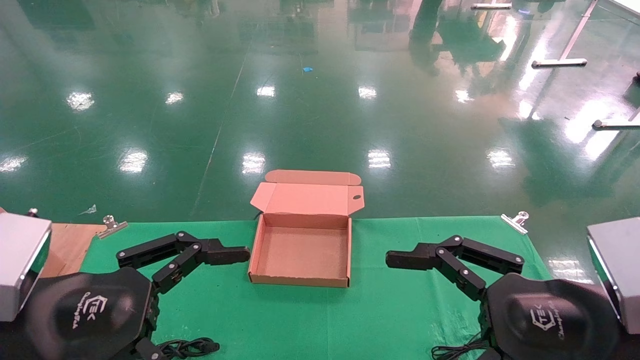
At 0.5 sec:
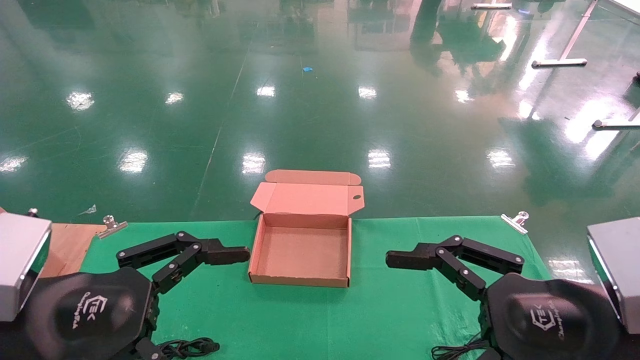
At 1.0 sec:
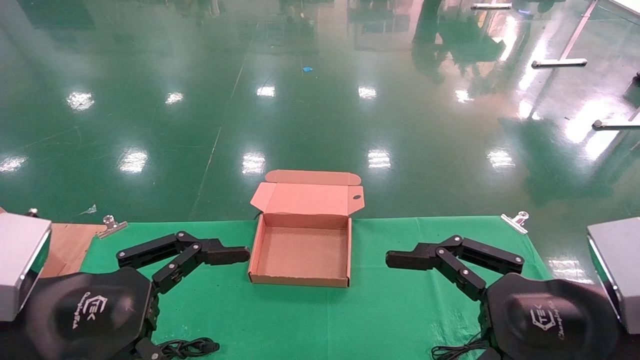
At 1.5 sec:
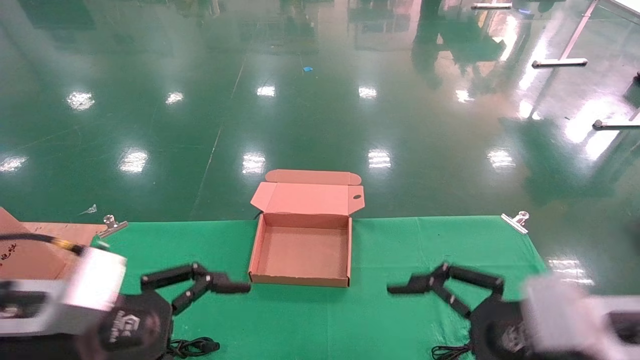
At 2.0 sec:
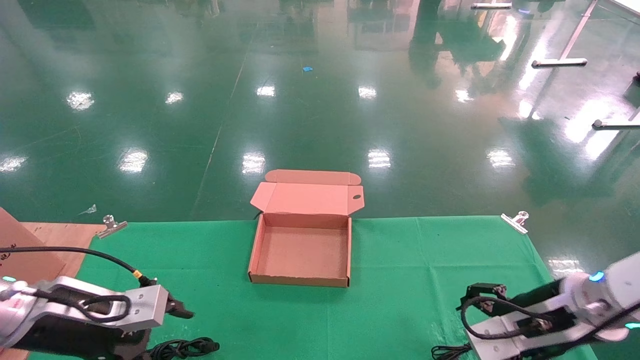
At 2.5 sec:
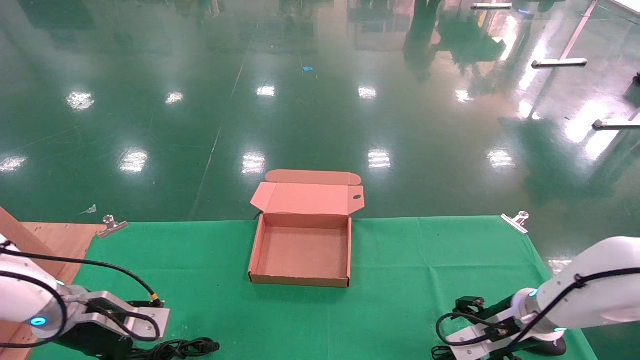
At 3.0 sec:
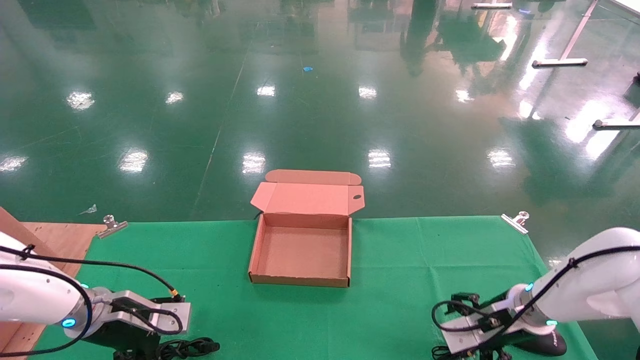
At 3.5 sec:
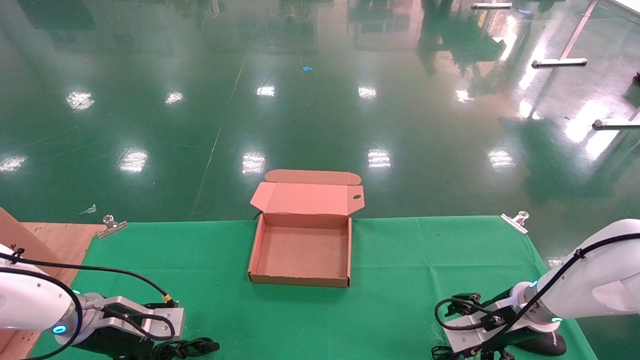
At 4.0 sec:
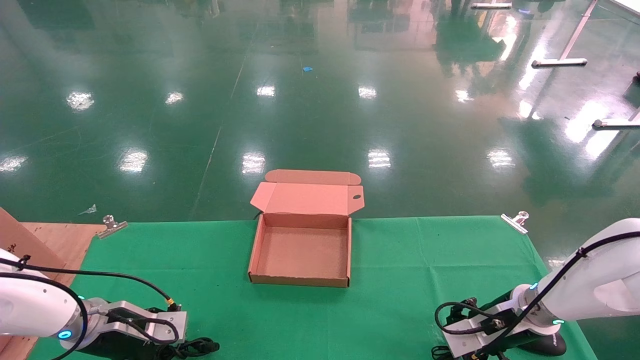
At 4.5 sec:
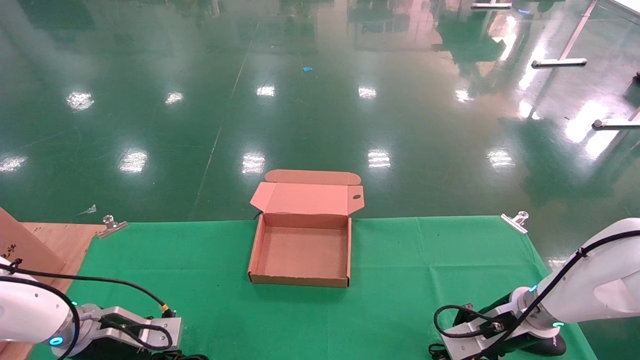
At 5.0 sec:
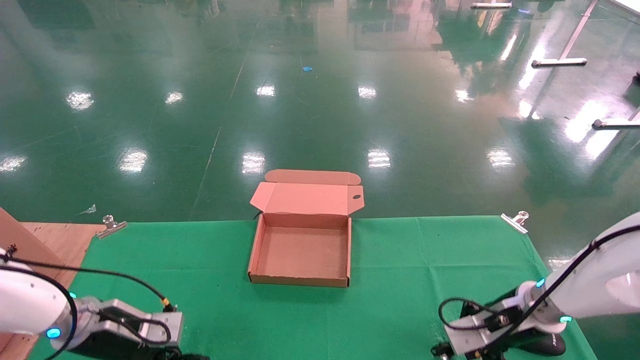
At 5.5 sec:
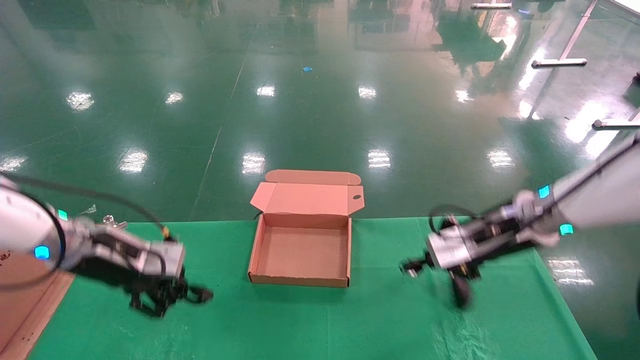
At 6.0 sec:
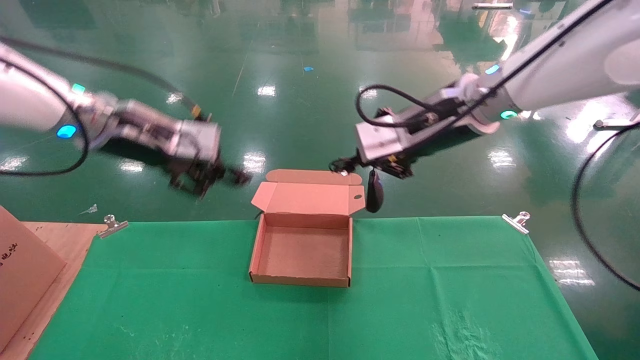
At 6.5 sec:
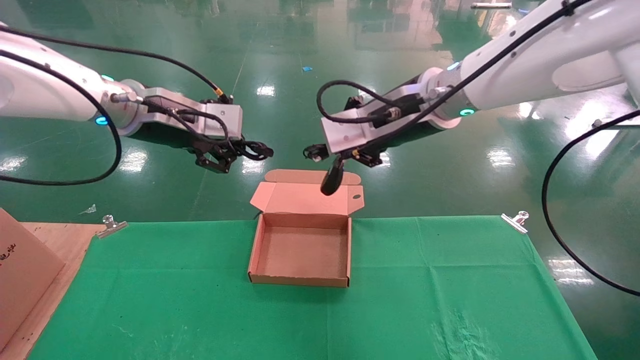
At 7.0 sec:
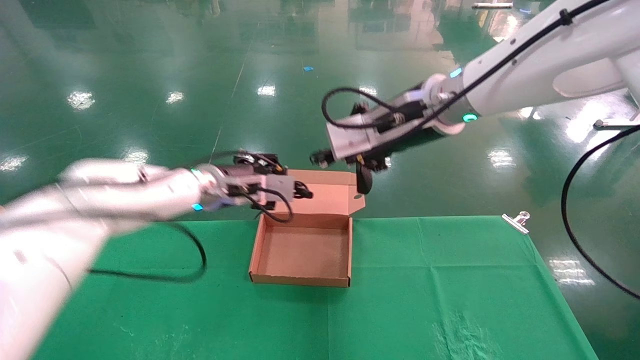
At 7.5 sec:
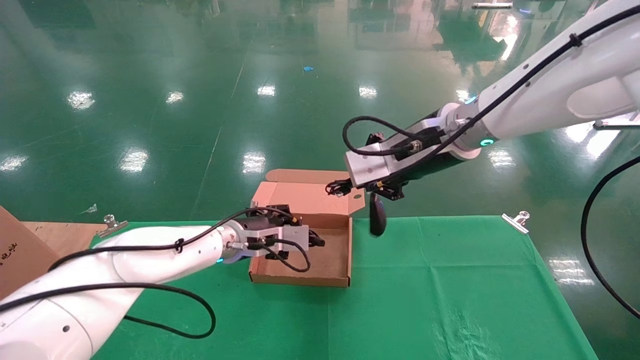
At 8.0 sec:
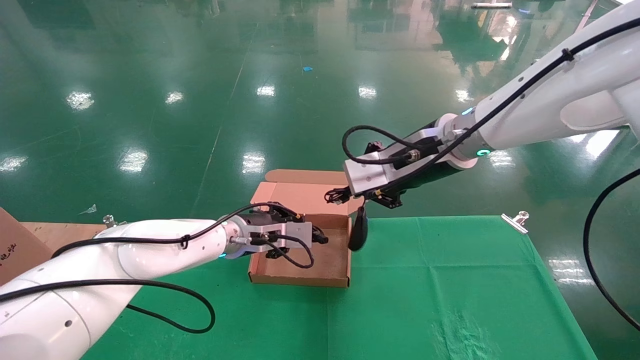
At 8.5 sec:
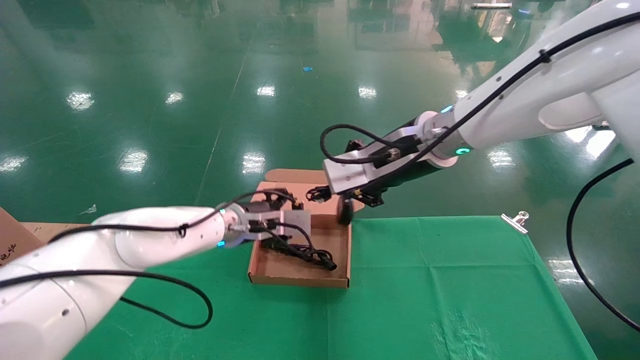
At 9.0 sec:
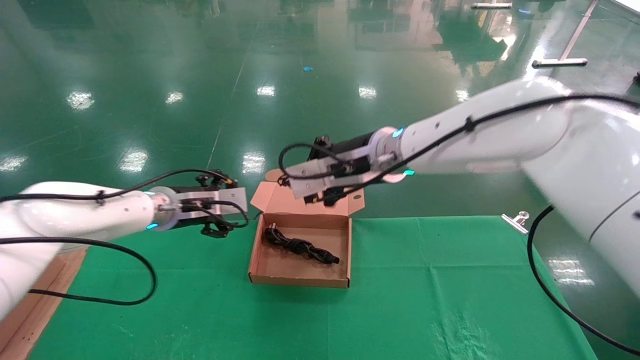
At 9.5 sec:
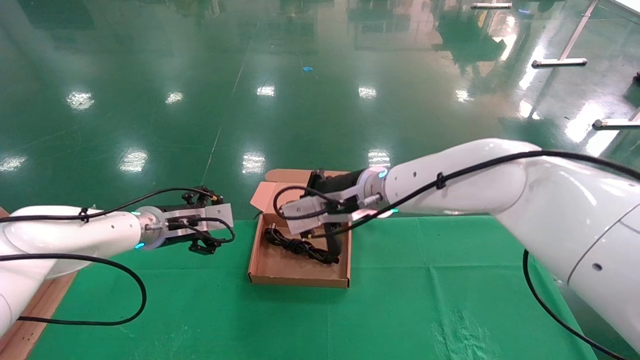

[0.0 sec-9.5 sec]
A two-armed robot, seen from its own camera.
Step, 2.0 sec to 5.0 sec: Grab and lift both the mouse and power cord from the accessory packaging area at the same time.
0.0 sec to 2.0 sec: The two grippers go some 15 cm forward and downward.
2.0 sec to 4.0 sec: The left gripper heads downward and forward, covering approximately 10 cm. The right gripper shifts roughly 10 cm forward and downward.
4.0 sec to 5.5 sec: The grippers both shift upward by roughly 15 cm. The left gripper closes up. The right gripper closes up.
5.5 sec to 7.5 sec: The left gripper travels to the right and forward by roughly 20 cm, and moves some 15 cm upward and comes back, while the right gripper moves upward and to the left, about 15 cm.
7.5 sec to 9.5 sec: The left gripper moves to the left, approximately 15 cm, and opens. The right gripper travels to the left and downward by about 10 cm.

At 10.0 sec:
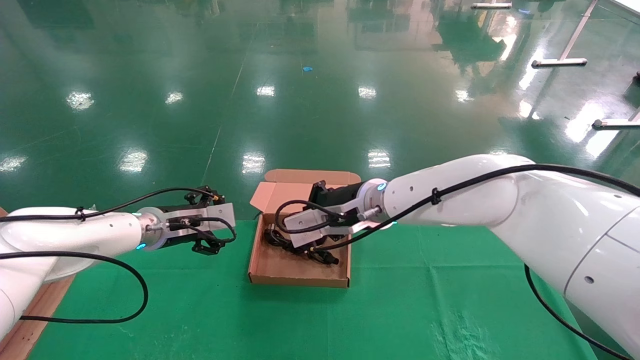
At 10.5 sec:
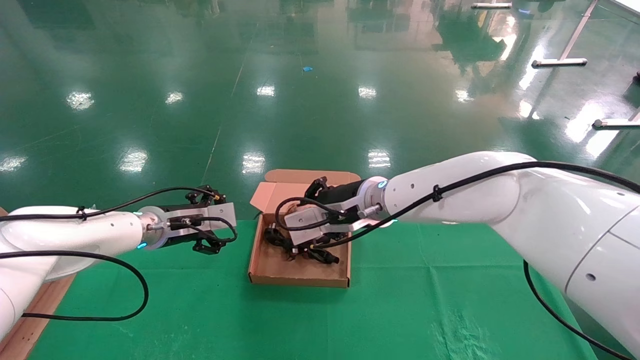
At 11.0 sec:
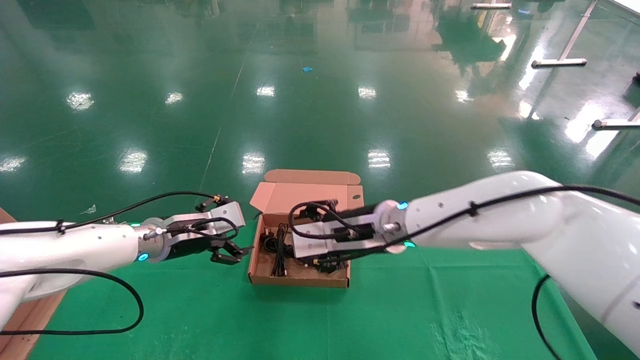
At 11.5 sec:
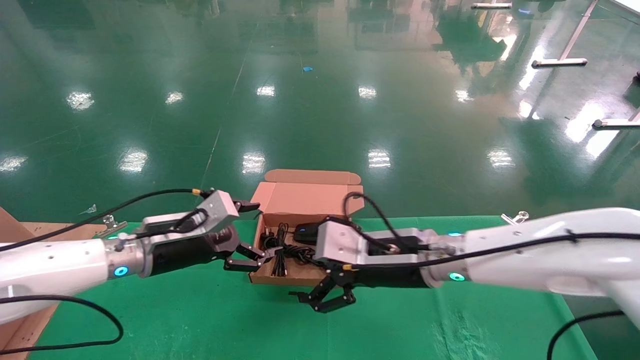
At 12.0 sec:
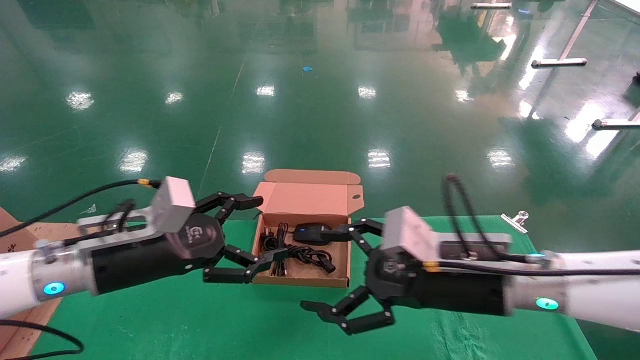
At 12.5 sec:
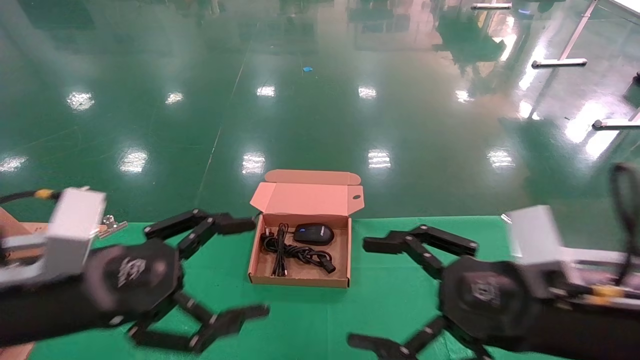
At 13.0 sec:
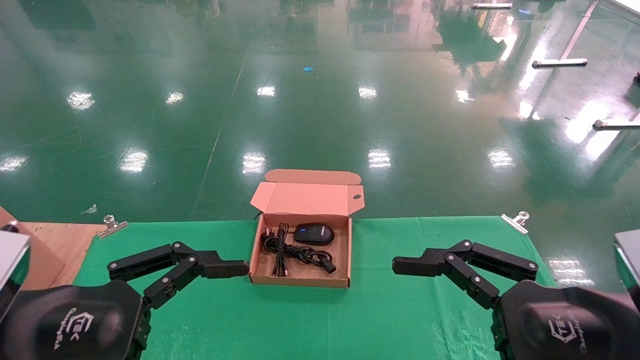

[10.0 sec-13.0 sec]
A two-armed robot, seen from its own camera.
10.0 sec to 11.5 sec: The left gripper goes roughly 10 cm backward. The right gripper travels backward, to the right and downward by some 10 cm, and opens.
11.5 sec to 13.0 sec: The left gripper heads backward, covering roughly 25 cm, while the right gripper travels backward and to the right by roughly 25 cm.
